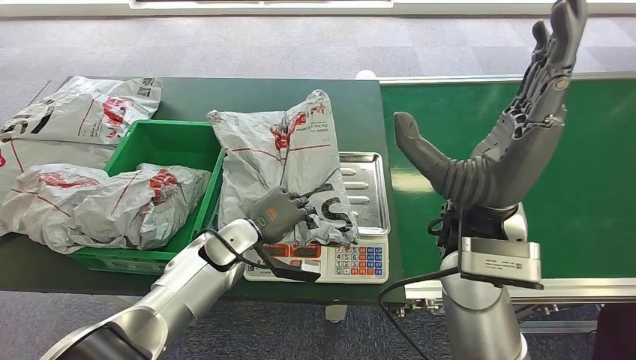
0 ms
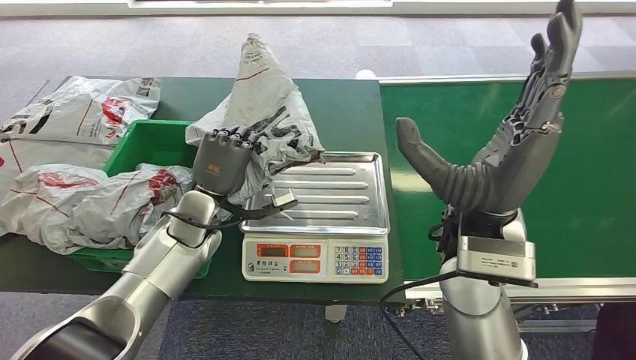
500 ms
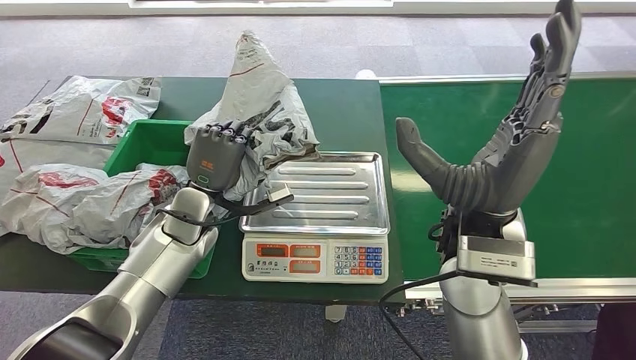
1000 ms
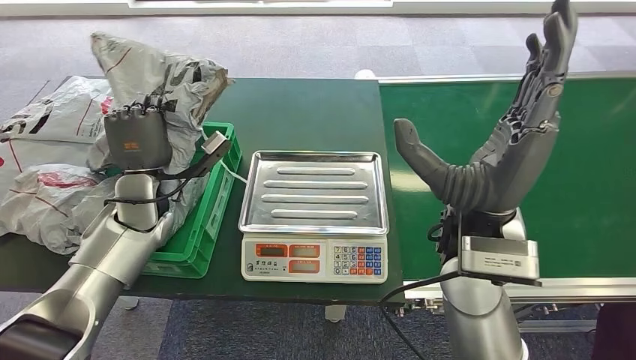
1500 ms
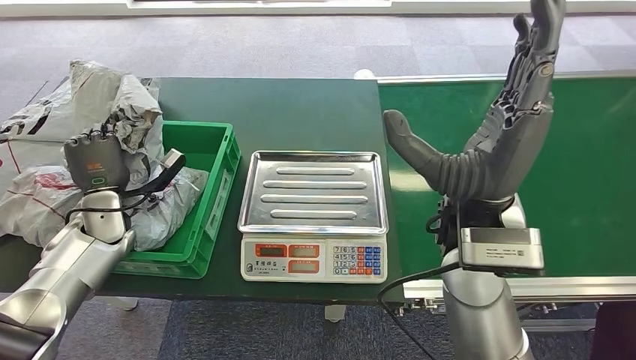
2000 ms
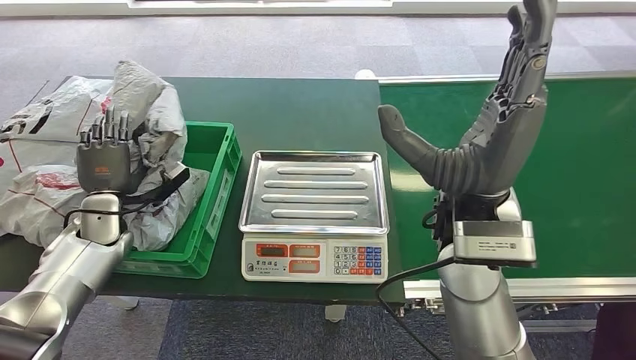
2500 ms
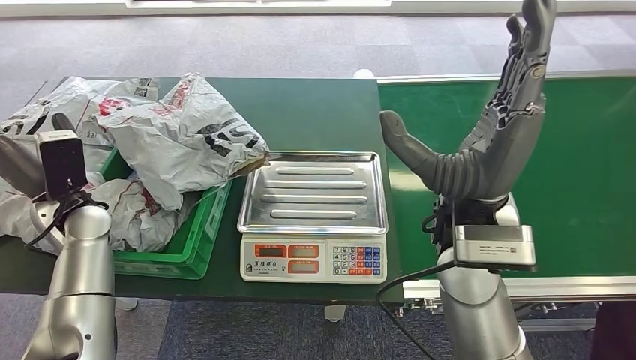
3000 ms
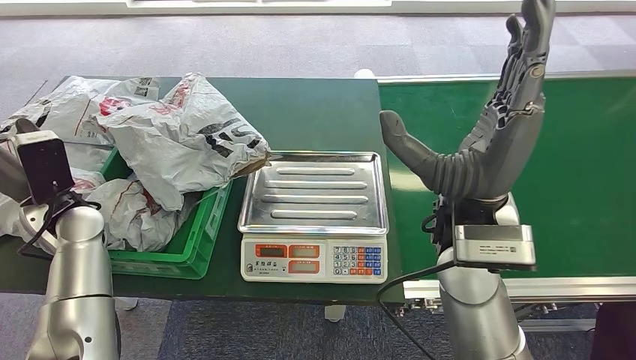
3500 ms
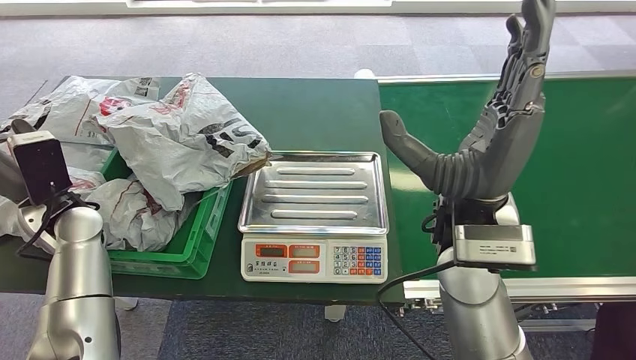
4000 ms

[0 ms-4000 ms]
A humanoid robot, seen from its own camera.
Task of the whole recording: Weigh the package on the weighing device and place it in the left basket.
Step, 1500 ms to 4000 ms: Place the package into the parcel locker.

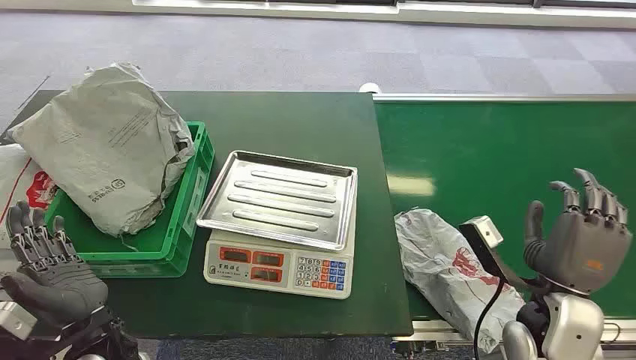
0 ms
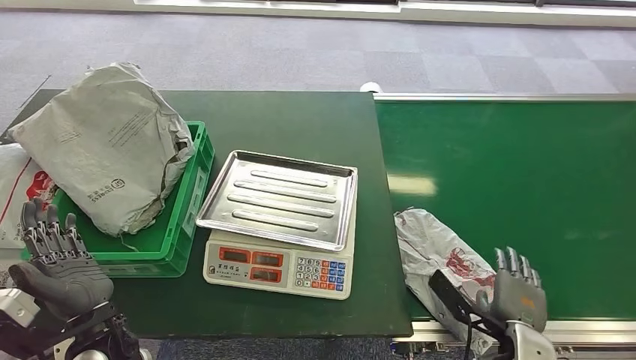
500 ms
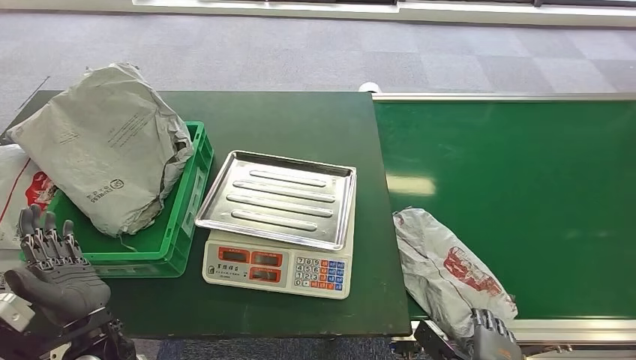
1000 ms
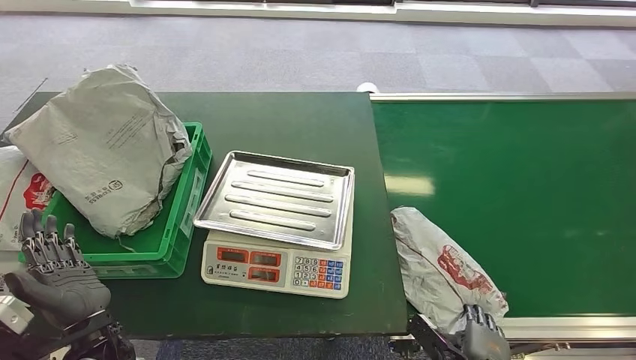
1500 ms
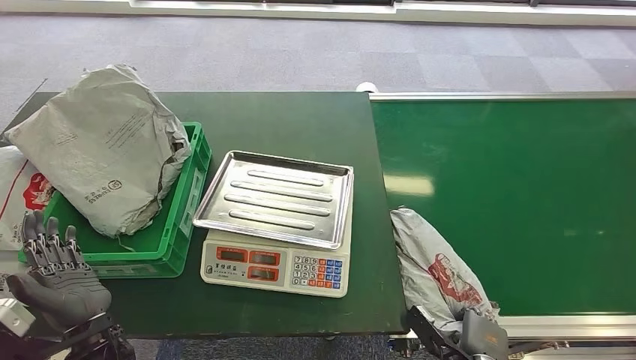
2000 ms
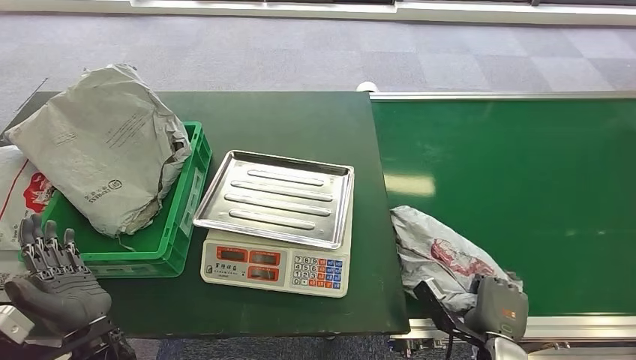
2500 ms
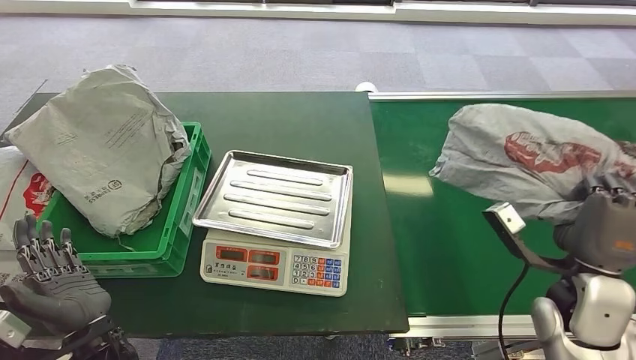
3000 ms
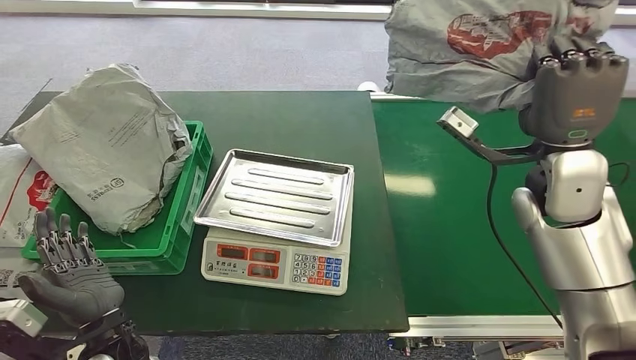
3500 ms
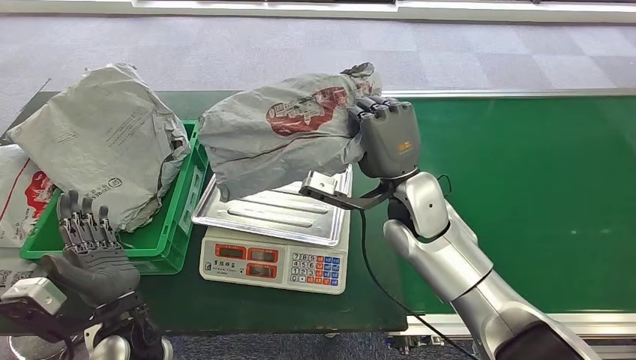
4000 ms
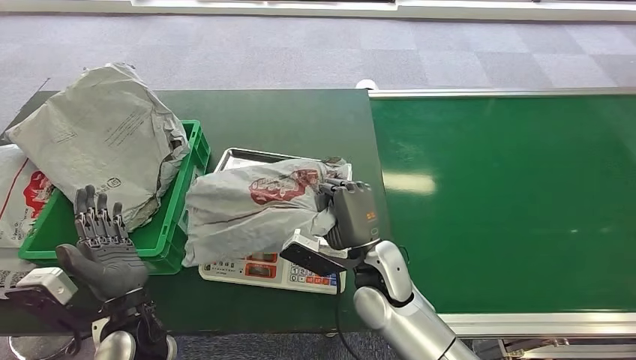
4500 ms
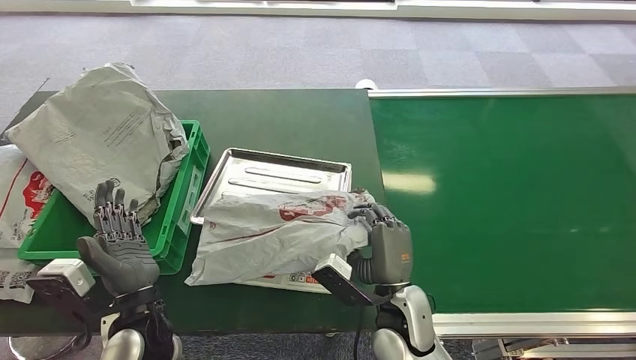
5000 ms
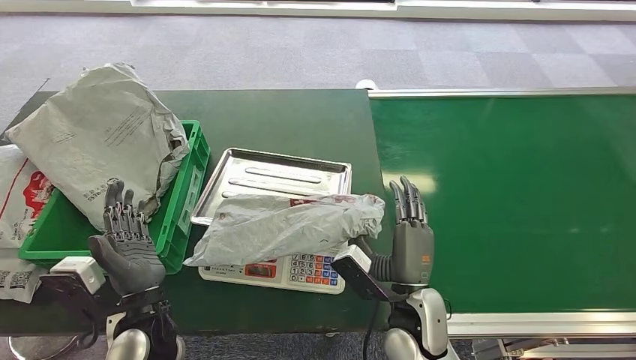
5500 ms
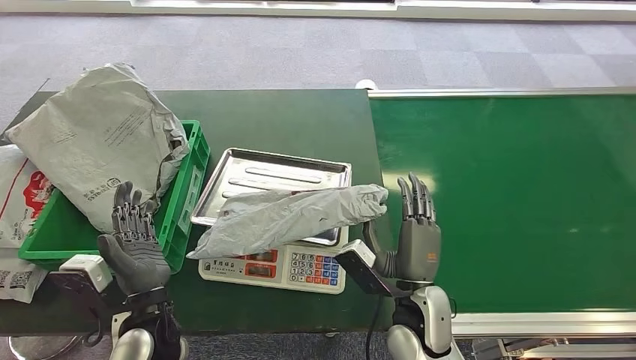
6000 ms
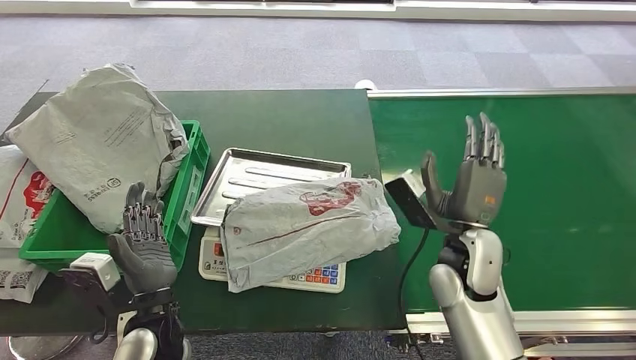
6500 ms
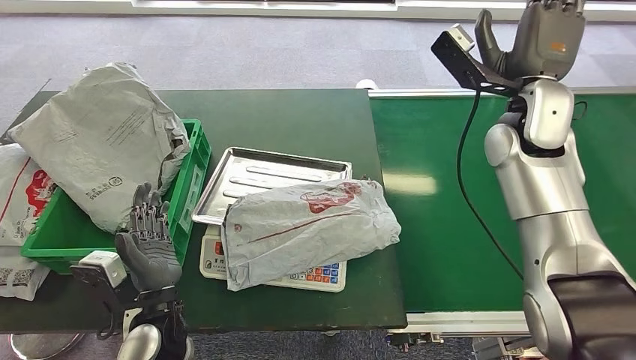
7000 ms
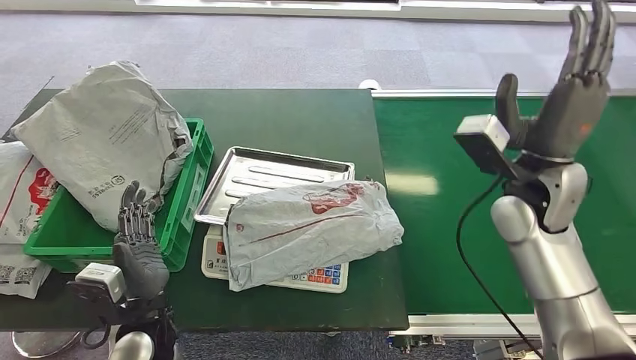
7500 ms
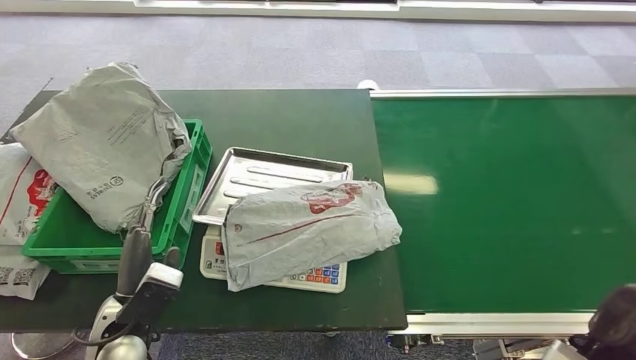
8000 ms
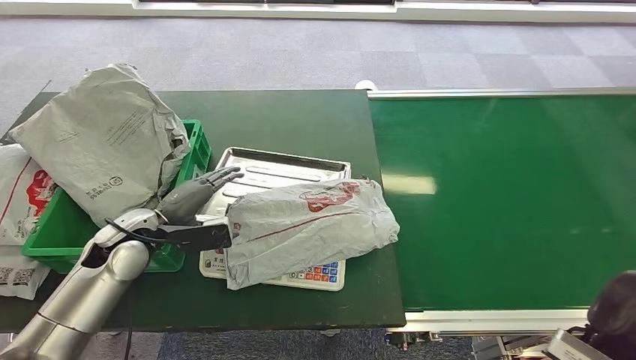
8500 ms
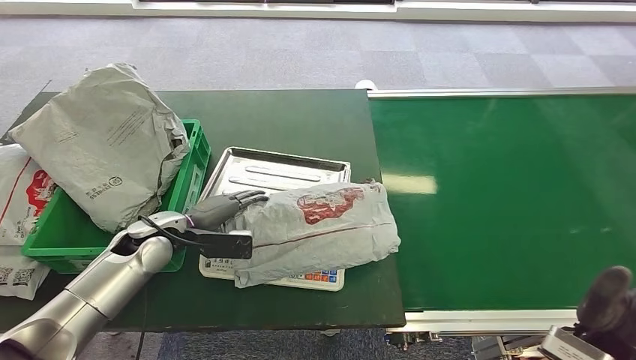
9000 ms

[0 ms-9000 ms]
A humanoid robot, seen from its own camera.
Task of the whole recording: Weigh the package on the weighing device and place it in the left basket.
Step, 0 ms to 3500 ms: Pick up the package from the conveyor belt.
Step, 4000 ms to 8000 ms: Place the package onto the inbound machine.

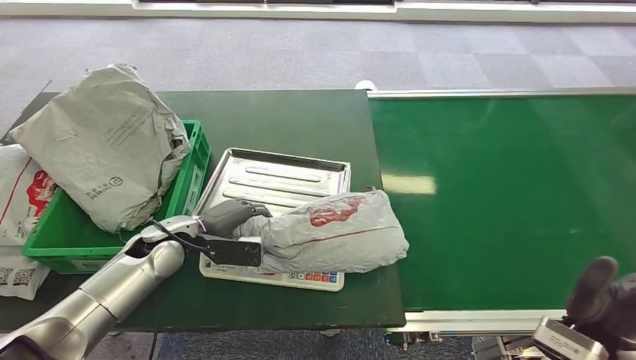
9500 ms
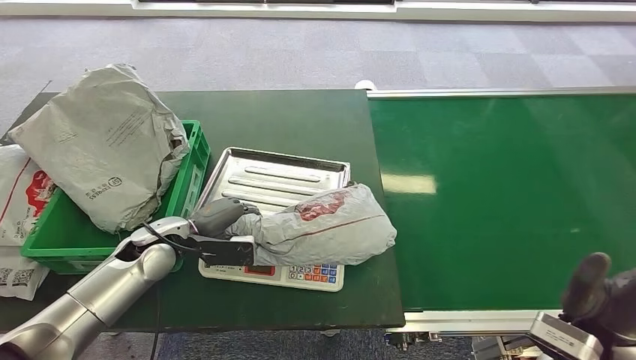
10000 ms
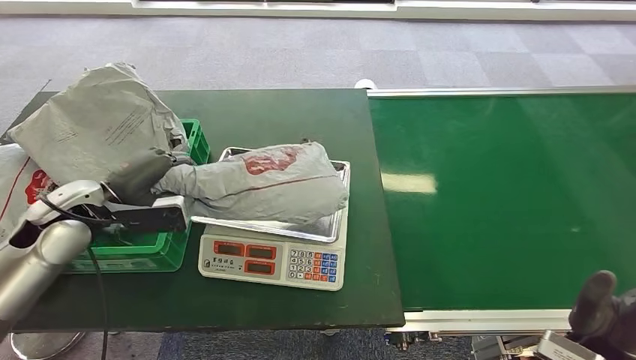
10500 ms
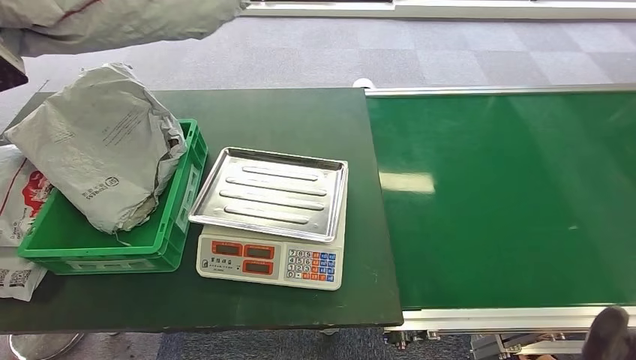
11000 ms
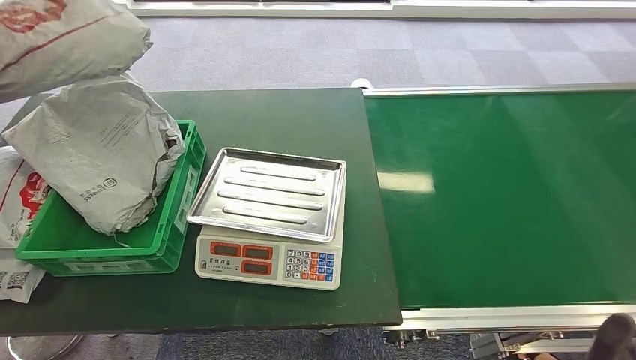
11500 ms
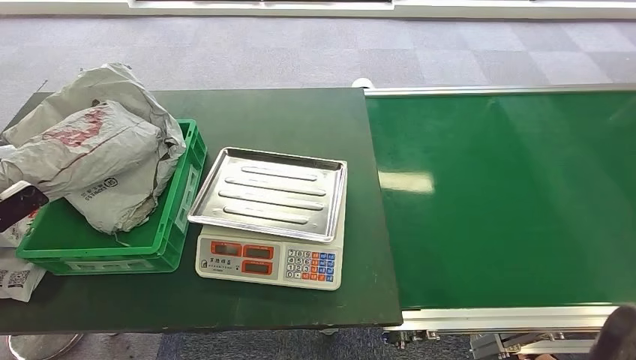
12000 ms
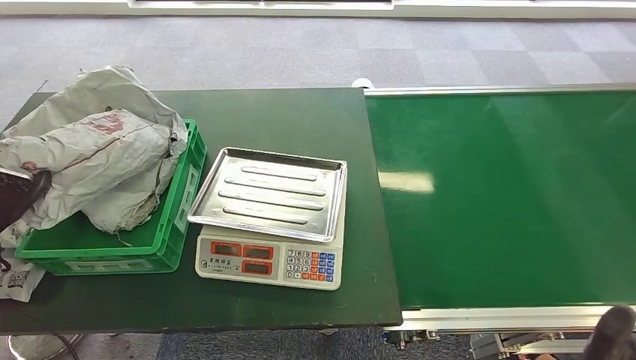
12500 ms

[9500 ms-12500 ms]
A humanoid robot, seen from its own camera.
Task of the whole recording: Weigh the package on the weighing device and place it in the left basket.
Step, 11000 ms to 12500 ms: Place the package into the parcel locker.
11000 ms to 12500 ms: The left hand travels downward by some 30 cm.
